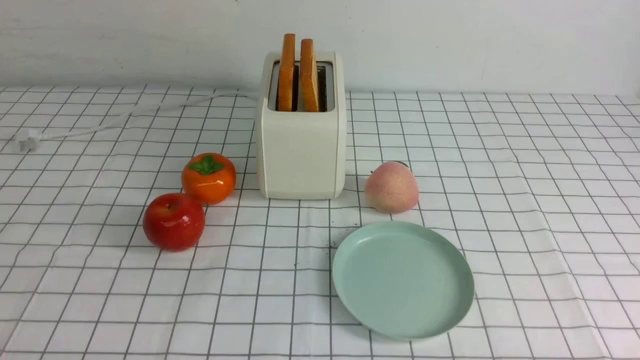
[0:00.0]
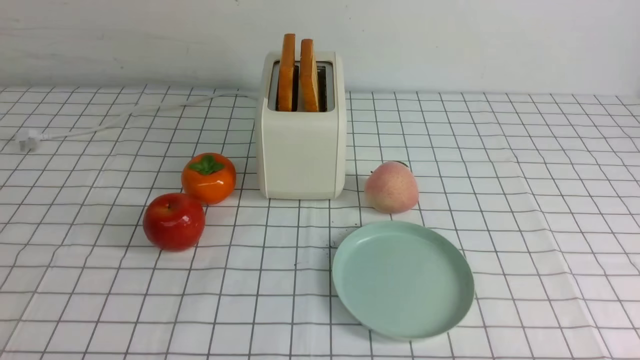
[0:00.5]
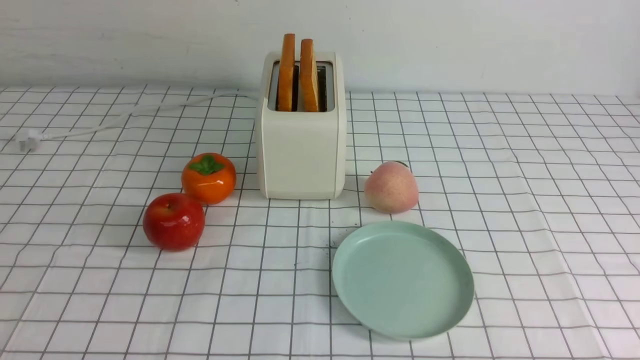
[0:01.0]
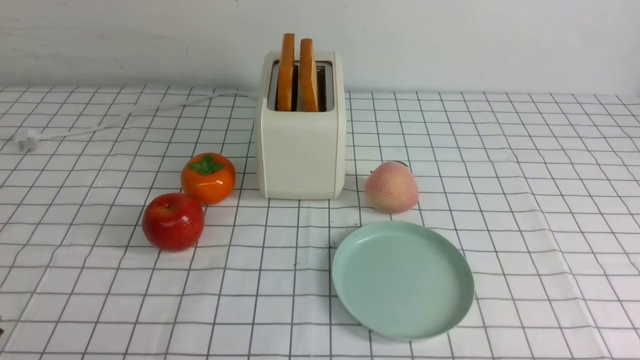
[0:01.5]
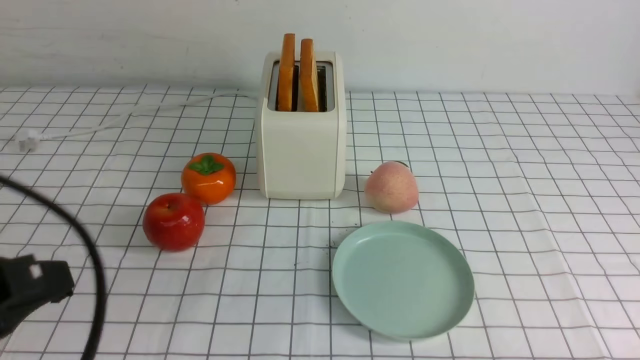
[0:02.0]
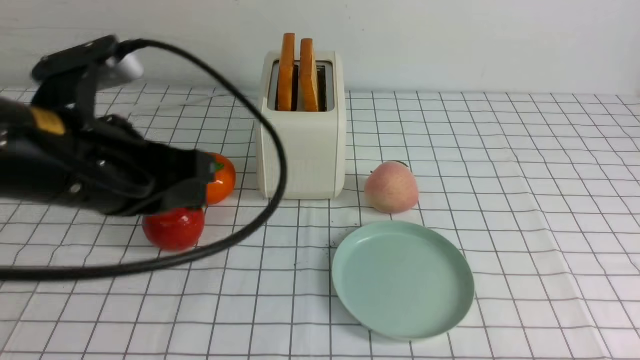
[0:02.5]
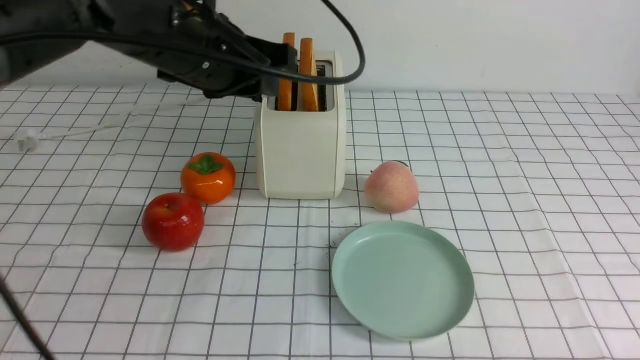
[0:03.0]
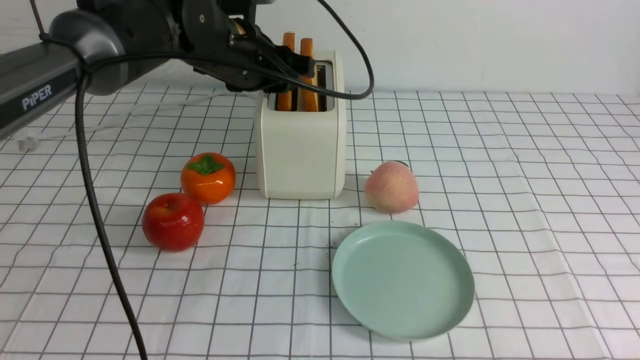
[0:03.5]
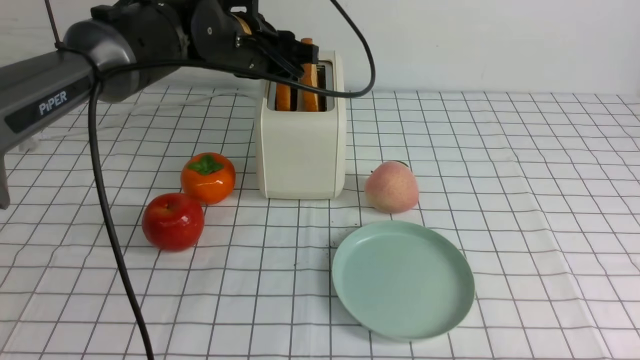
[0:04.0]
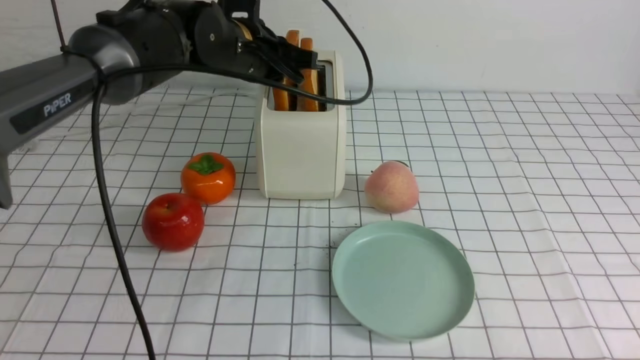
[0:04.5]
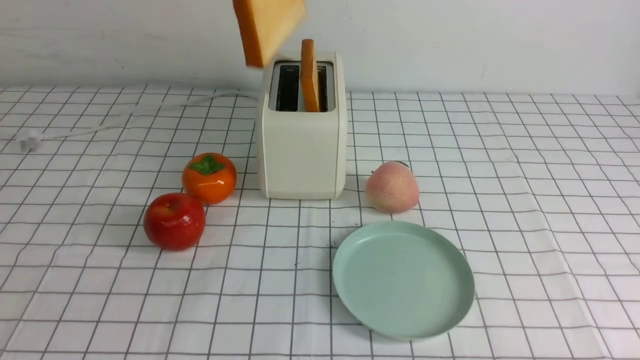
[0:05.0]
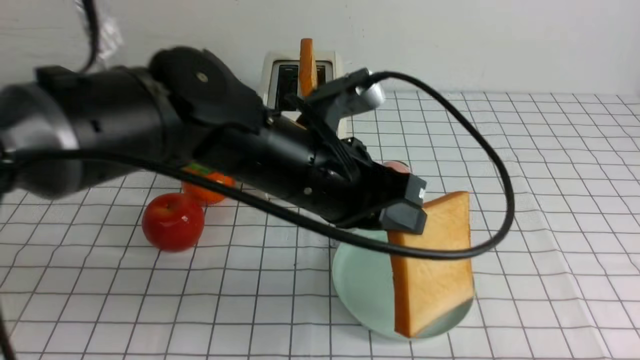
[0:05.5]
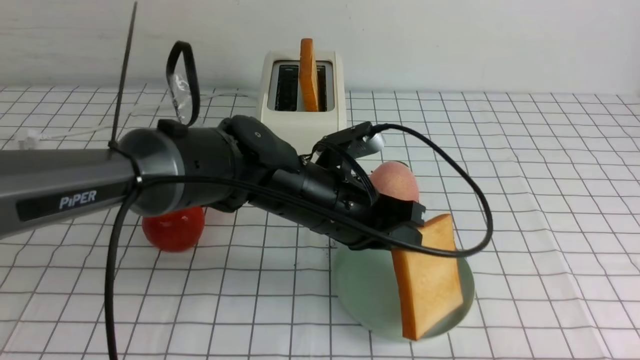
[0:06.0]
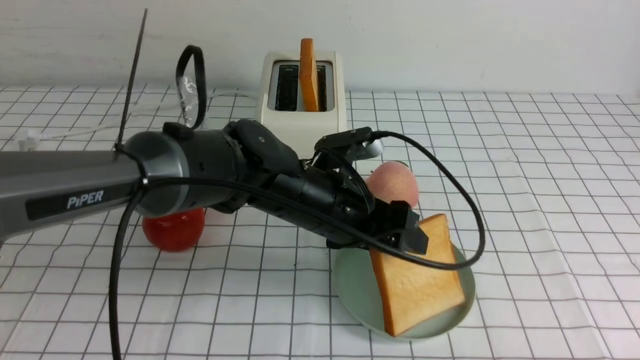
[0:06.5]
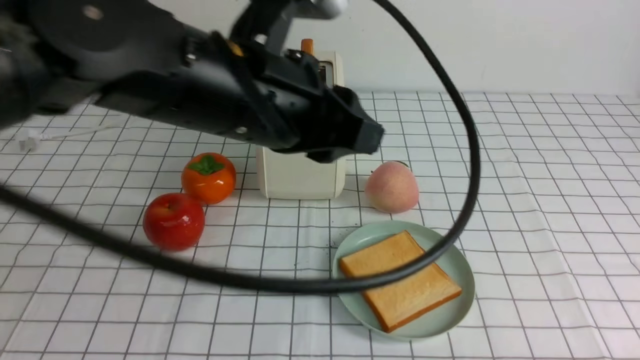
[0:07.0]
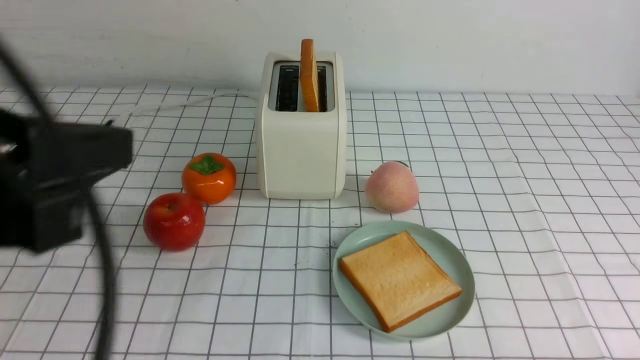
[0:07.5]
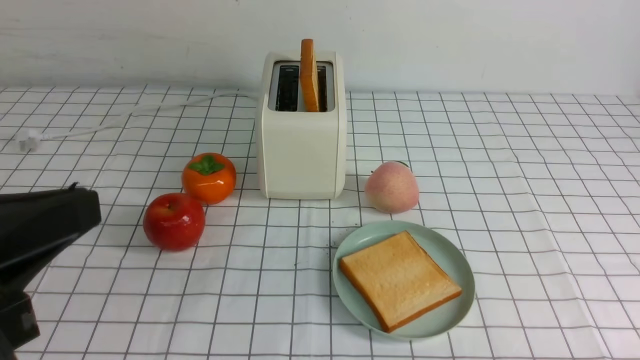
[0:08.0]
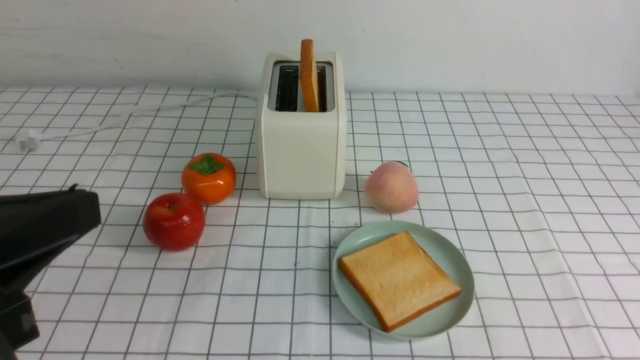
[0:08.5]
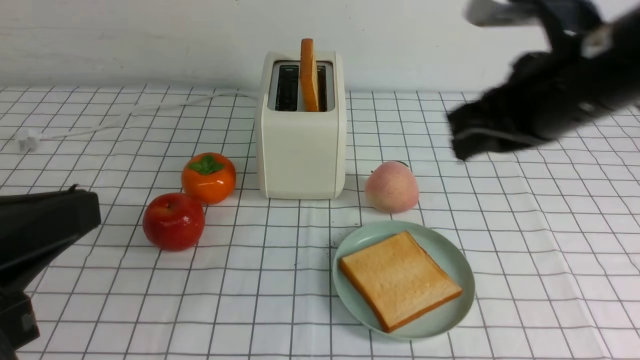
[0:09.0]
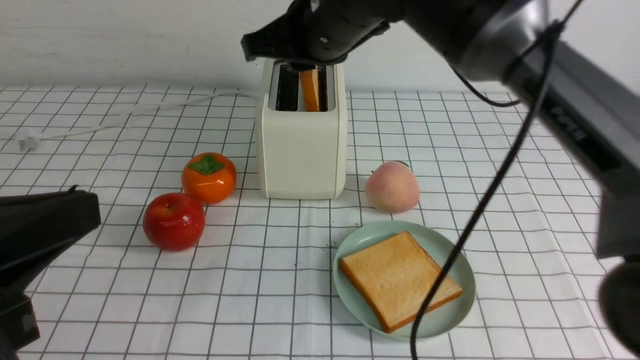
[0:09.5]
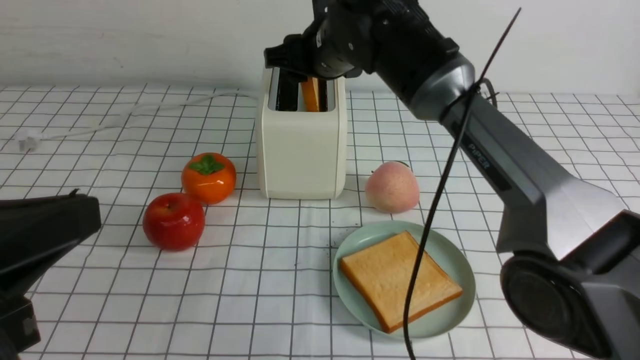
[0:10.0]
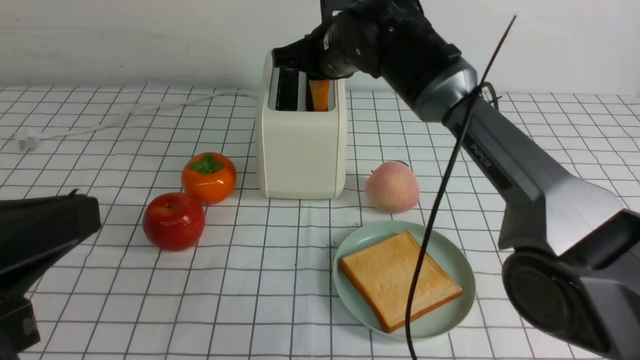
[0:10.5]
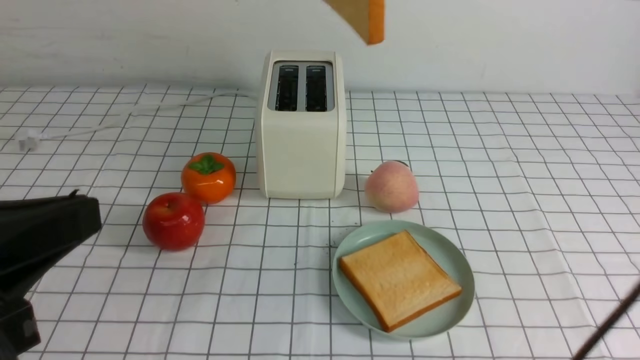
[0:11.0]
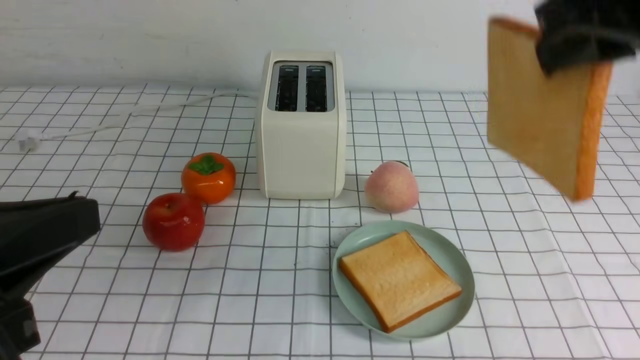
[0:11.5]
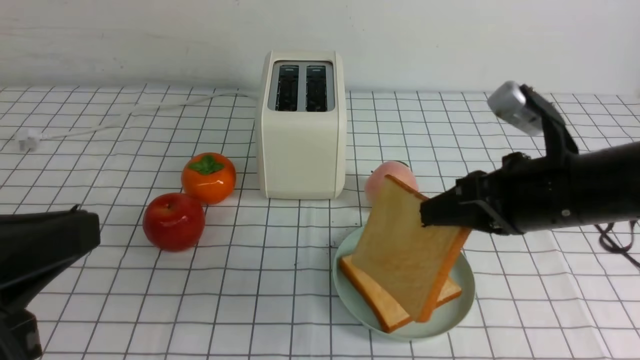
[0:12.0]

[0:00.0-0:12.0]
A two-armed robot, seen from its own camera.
Task of the whole recording: take toasted bread from bread machine on white checkered table place on plate.
Step, 0:00.0 to 0:04.5: use the left arm to take out a slice of bread.
Step, 0:05.0 to 0:06.5: use the left arm to put a slice of bread into the empty plate.
Step, 0:07.0 to 0:10.5: use the right arm to take out a slice of bread.
0:00.0 to 0:02.0: The left gripper travels upward and forward by roughly 15 cm, and closes up.
0:02.0 to 0:04.0: The left gripper shifts approximately 35 cm forward and to the right, and opens up.
0:04.0 to 0:06.0: The left gripper shifts some 20 cm backward, downward and to the right, and closes.
0:06.0 to 0:08.0: The left gripper travels backward, to the left and upward by about 35 cm, and opens, then closes once more.
0:08.0 to 0:10.0: The right gripper travels forward and to the left by some 50 cm, and closes, then reopens.
0:10.0 to 0:12.0: The right gripper heads backward and to the right, covering approximately 25 cm, goes upward and returns, about 20 cm each way, and closes up.

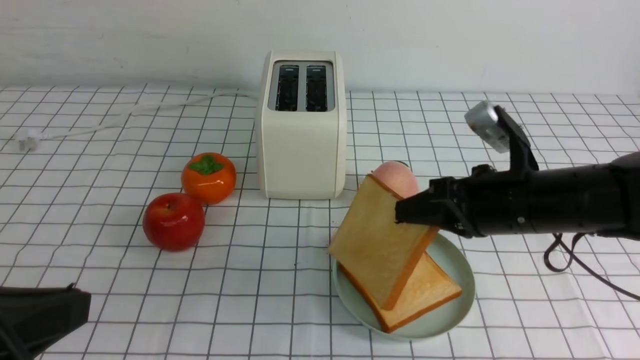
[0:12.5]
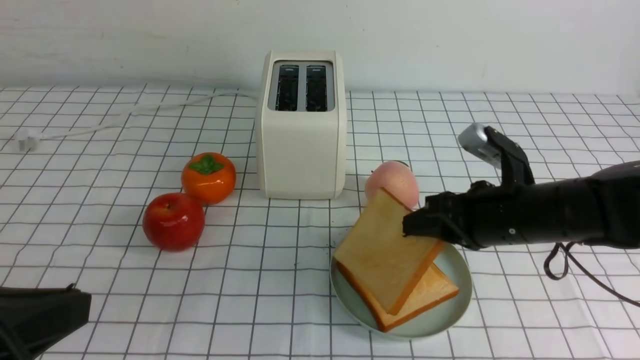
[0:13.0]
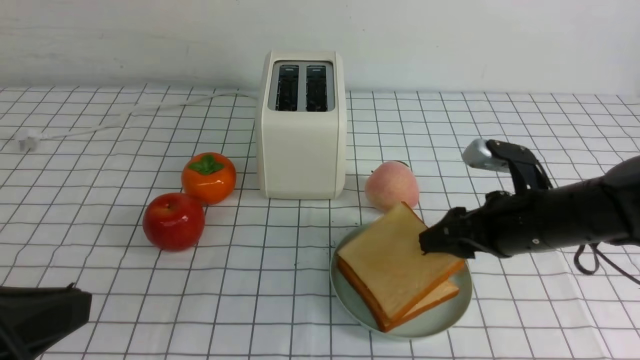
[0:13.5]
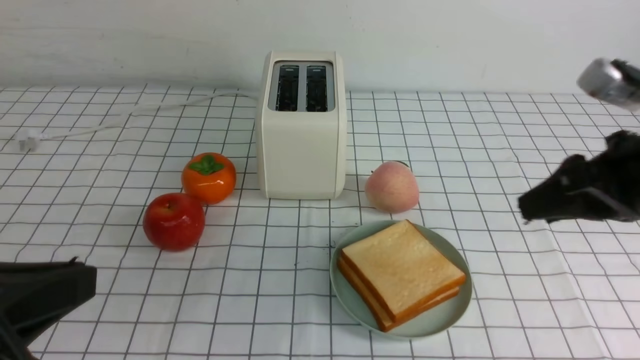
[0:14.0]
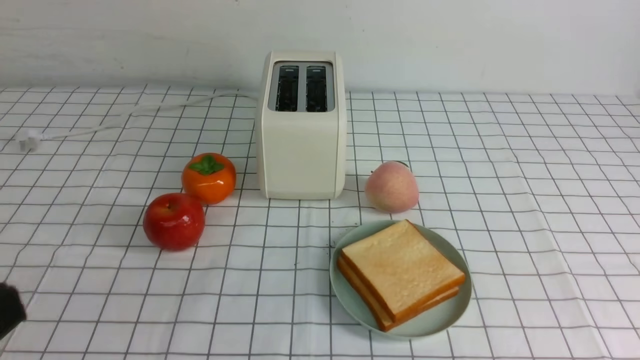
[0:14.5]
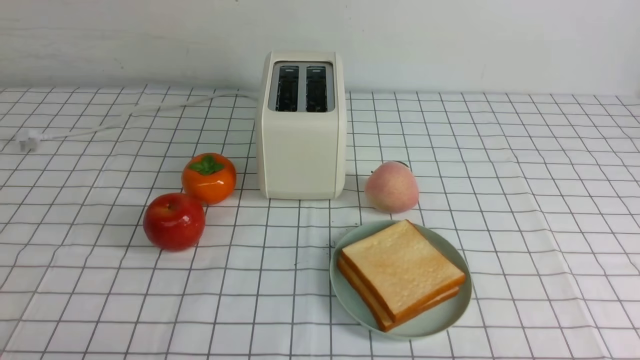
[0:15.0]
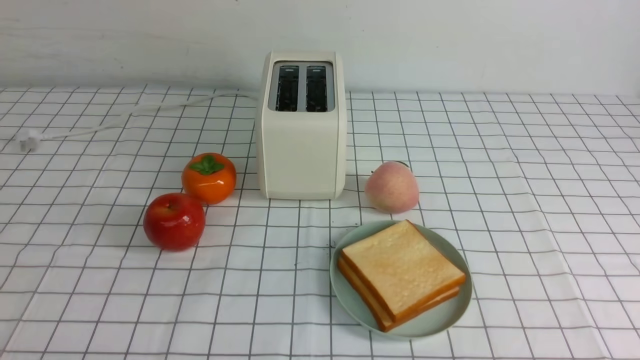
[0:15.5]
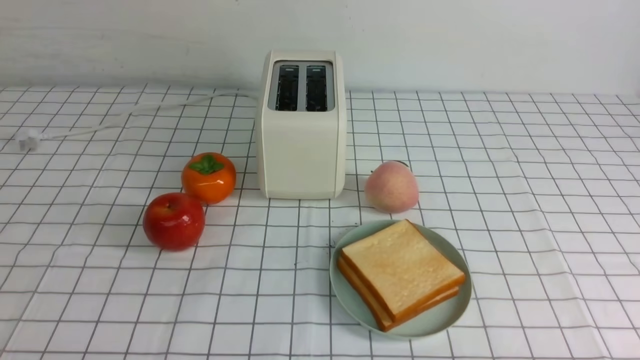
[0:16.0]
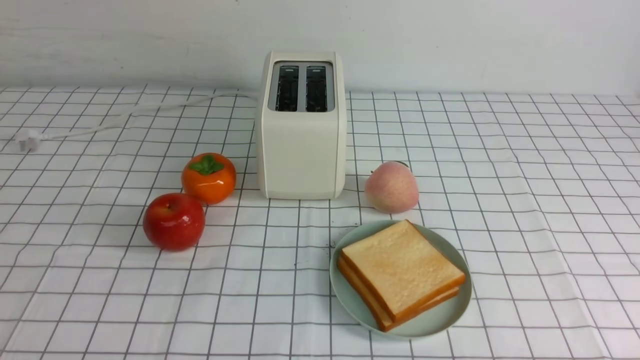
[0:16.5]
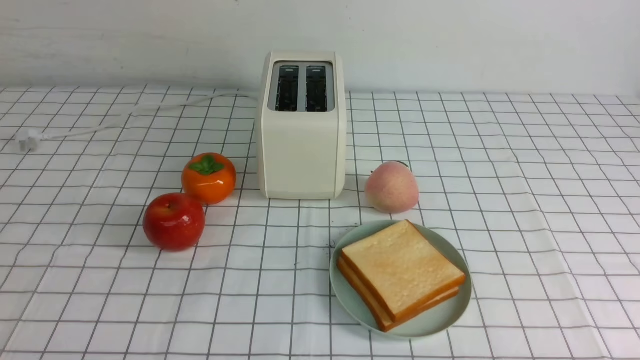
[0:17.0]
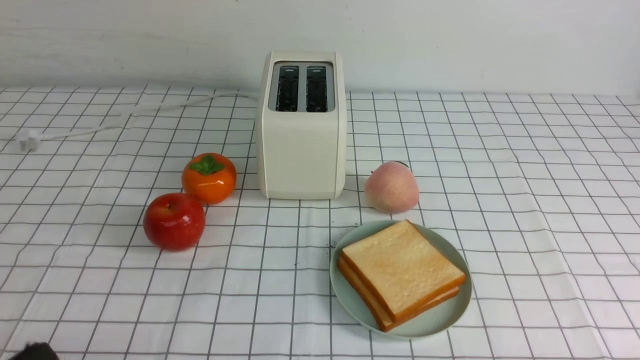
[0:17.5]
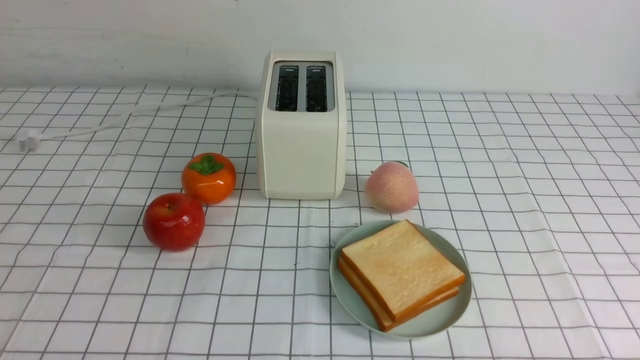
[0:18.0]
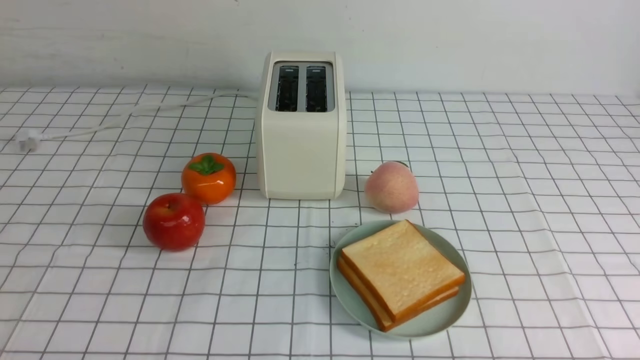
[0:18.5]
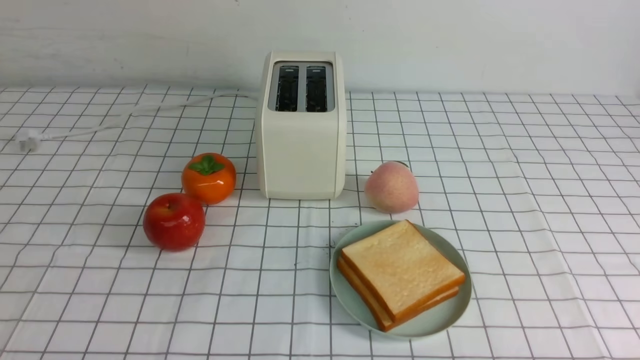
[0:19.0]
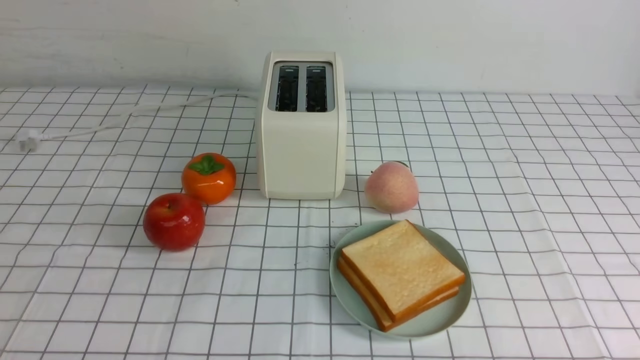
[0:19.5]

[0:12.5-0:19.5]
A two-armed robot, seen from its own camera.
Task of the whole recording: take toasted bread from bread machine on white checkered table place on plate.
0:12.5 to 0:14.5: The left gripper ends up about 5 cm from where it was; the right gripper moves backward, upward and to the right, approximately 30 cm, and opens and closes again.

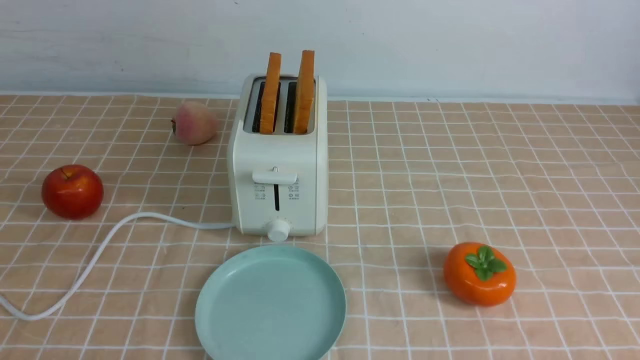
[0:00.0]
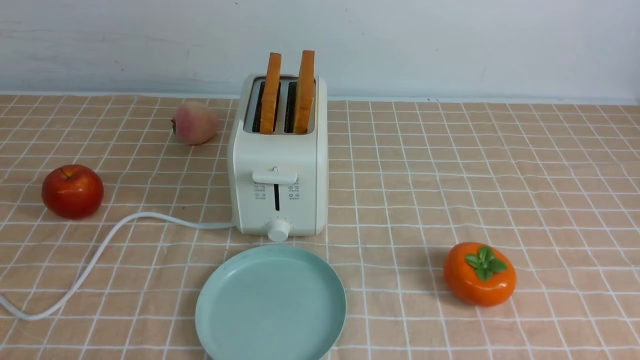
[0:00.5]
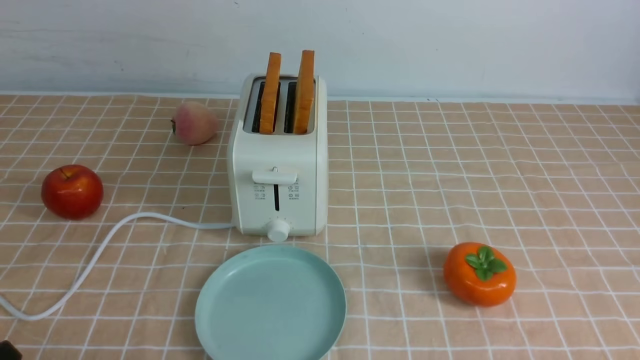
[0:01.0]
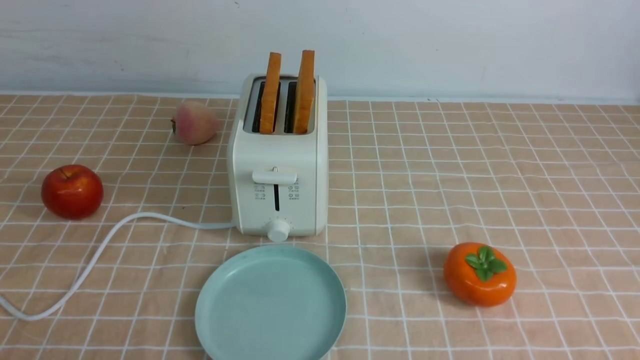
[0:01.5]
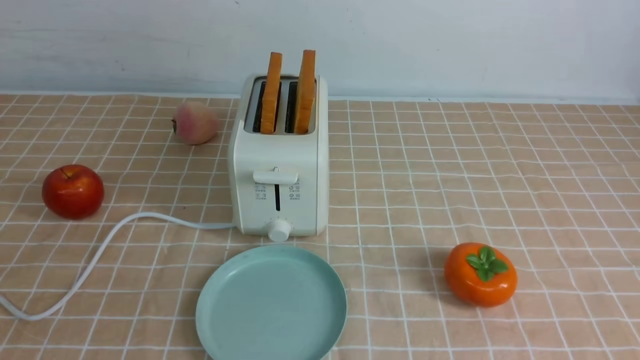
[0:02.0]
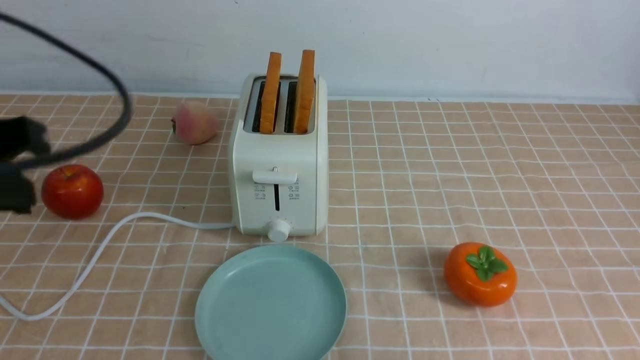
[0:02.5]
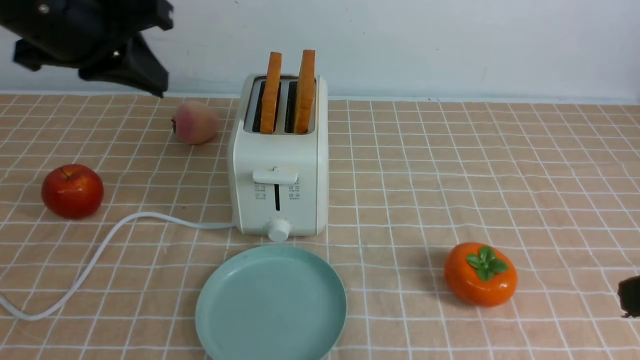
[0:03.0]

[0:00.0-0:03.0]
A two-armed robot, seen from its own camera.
Task of the whole recording: take toasted bread from bread machine on light coffee tablecloth place on plate.
0:01.5 to 0:03.0: The left gripper goes about 35 cm forward and upward, and closes its fingers.
